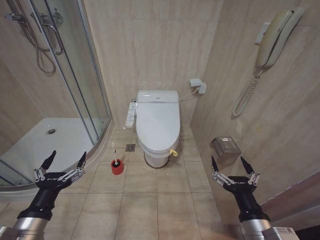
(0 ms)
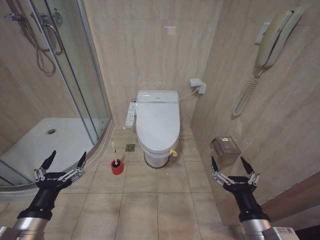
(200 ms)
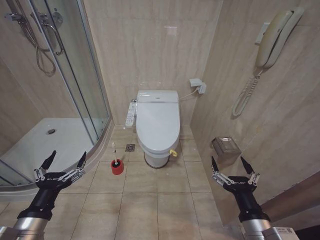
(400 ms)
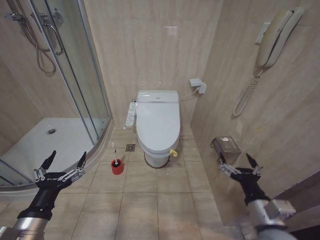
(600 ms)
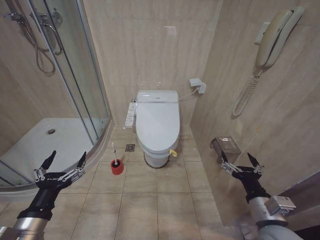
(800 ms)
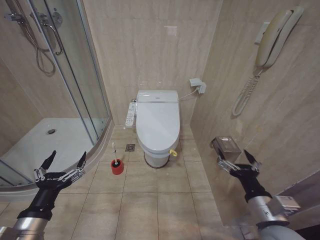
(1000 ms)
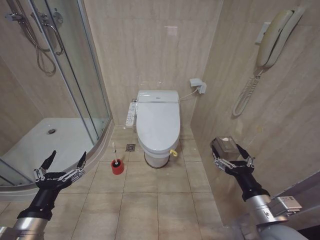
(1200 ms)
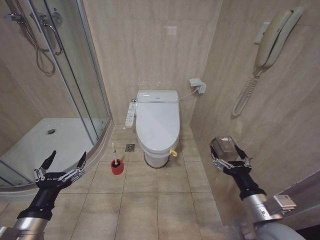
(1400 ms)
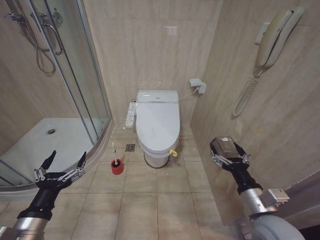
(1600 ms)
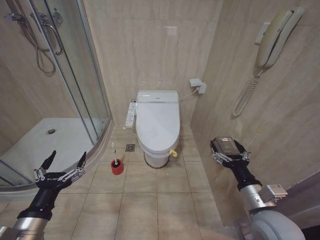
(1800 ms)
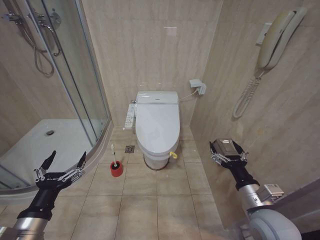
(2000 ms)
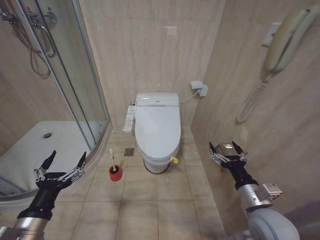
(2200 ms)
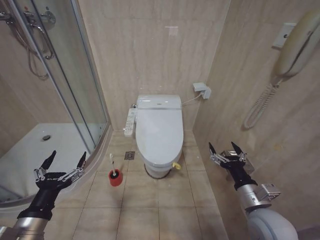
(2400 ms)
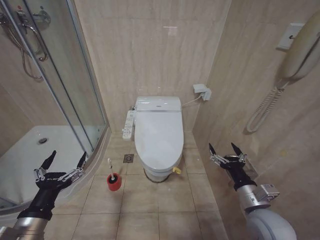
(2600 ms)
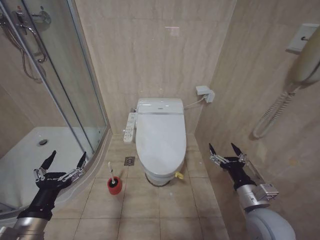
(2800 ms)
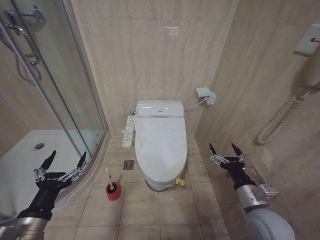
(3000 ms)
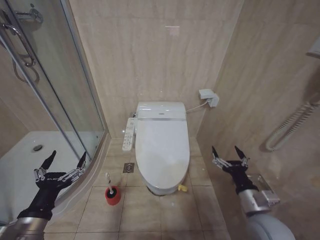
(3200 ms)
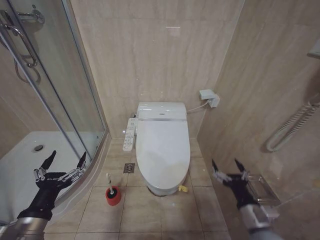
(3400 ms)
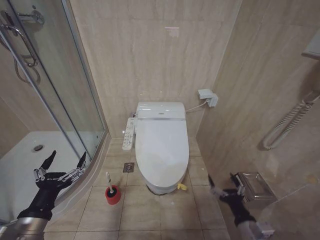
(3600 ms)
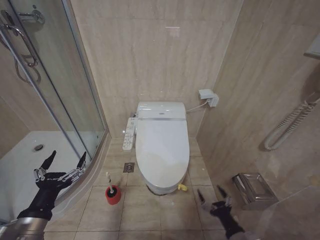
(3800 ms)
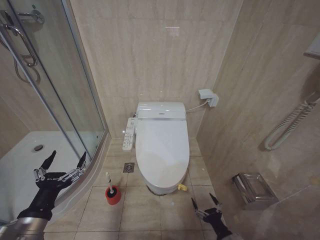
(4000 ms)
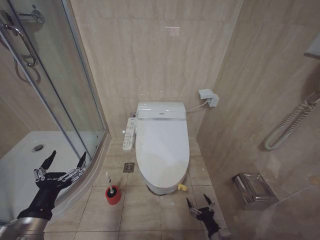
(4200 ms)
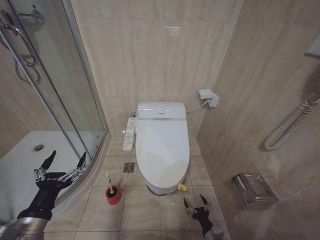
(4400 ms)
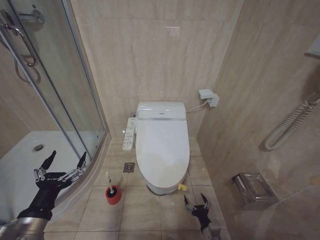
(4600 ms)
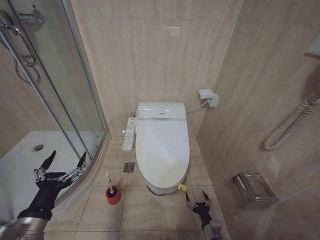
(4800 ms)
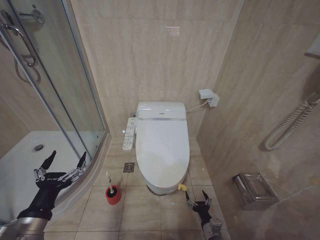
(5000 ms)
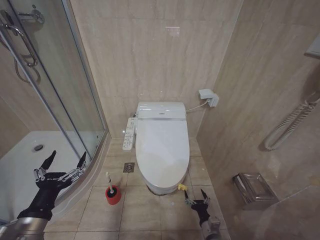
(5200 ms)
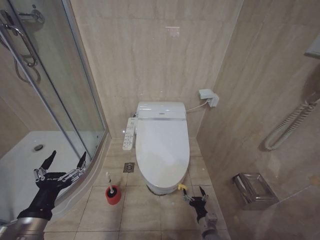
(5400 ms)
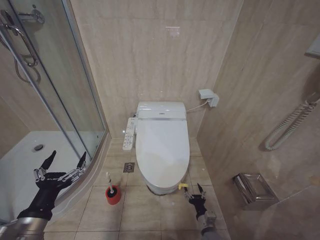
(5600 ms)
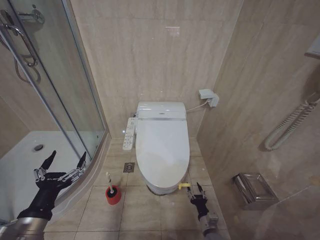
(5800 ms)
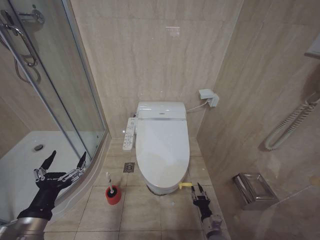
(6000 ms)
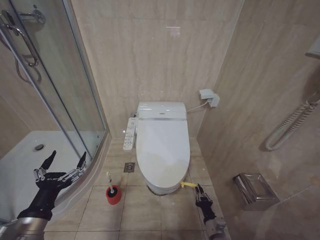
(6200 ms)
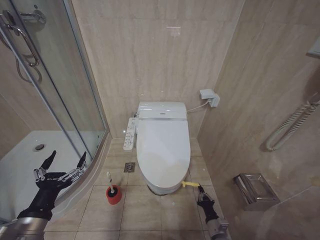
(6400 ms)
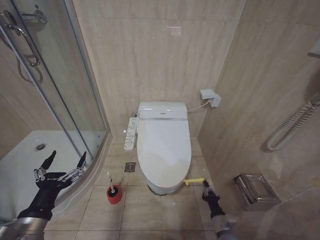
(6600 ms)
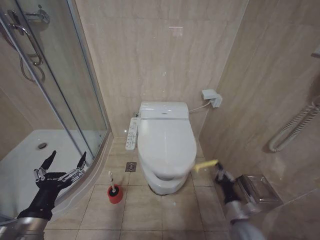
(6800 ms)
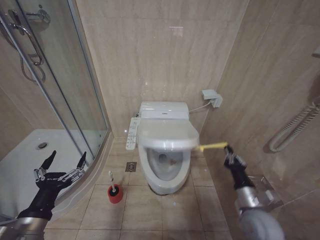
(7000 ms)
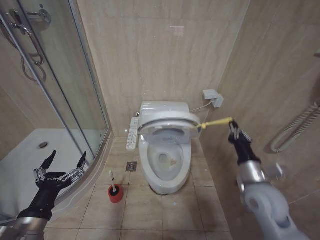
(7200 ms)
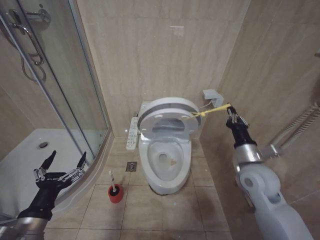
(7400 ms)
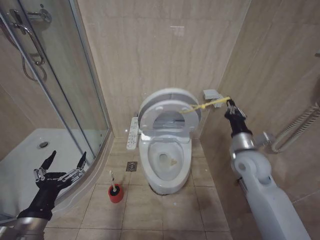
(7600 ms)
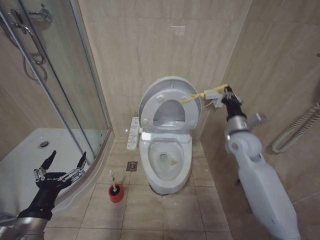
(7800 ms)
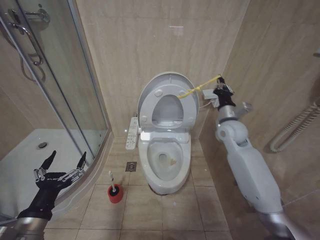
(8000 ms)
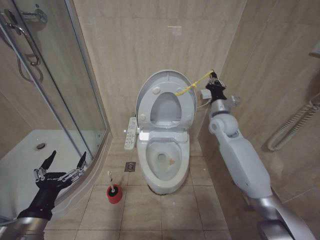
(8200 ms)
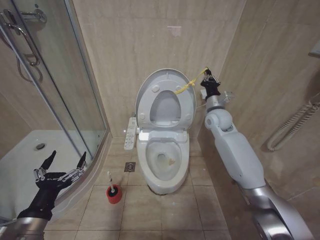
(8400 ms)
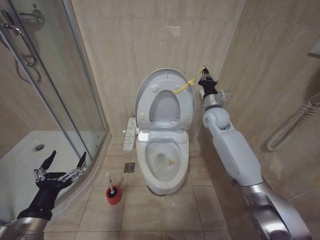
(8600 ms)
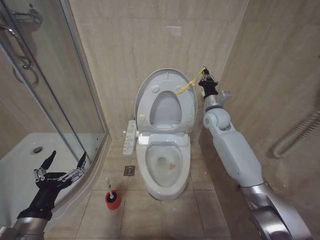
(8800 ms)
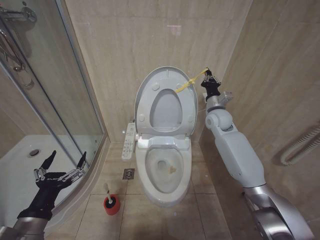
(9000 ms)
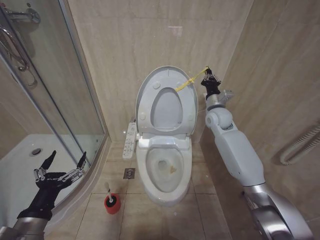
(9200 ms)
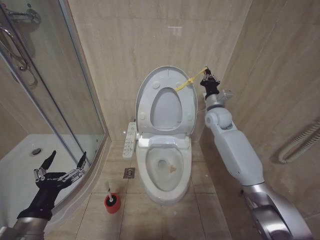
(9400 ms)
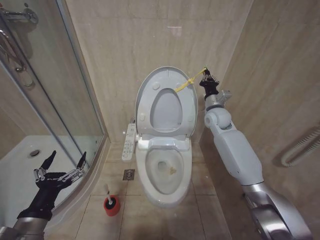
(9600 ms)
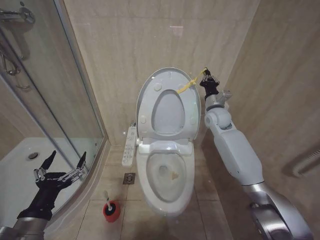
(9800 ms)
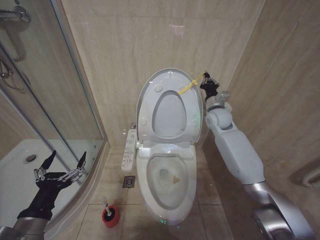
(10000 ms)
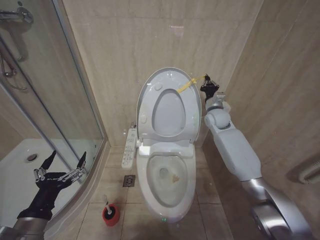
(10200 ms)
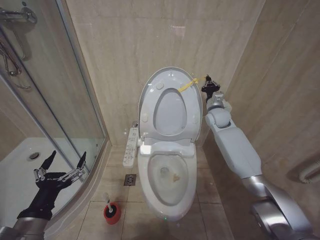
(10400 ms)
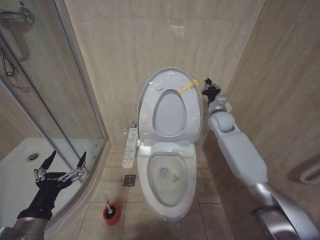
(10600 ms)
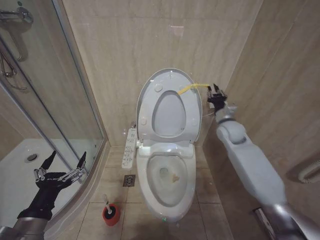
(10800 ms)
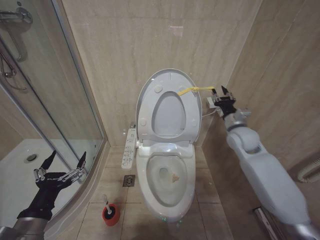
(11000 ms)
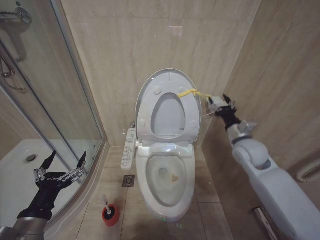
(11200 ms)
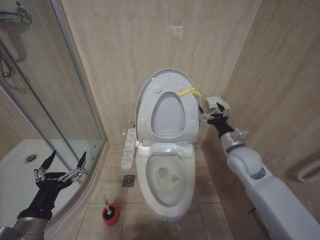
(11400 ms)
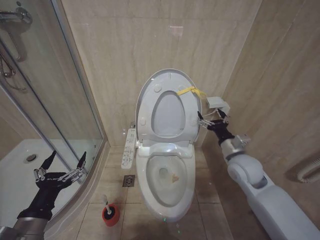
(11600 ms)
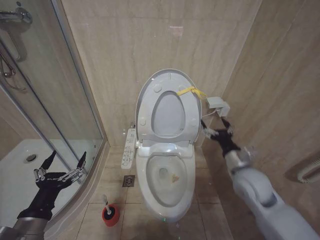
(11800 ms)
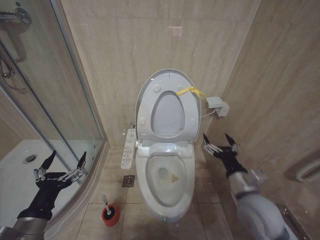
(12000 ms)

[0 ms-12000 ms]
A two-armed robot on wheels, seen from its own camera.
Task of the whole recording: Open the toilet lid, clean the toilet bowl with a toilet brush, close the toilet lid, and flush.
3000 ms to 4400 ms: The right gripper is displaced downward by roughly 30 cm.
4400 ms to 6000 ms: The right gripper shifts by roughly 5 cm, and closes its fingers.
6000 ms to 7600 ms: The right gripper heads upward, covering approximately 35 cm, and closes up.
7600 ms to 9000 ms: The right gripper shifts roughly 20 cm forward.
10400 ms to 12000 ms: The right gripper heads backward, covering approximately 30 cm, and opens its fingers.

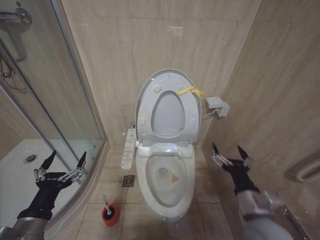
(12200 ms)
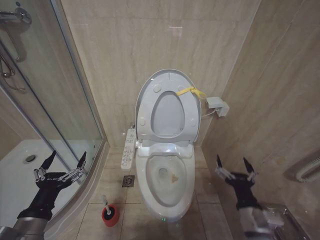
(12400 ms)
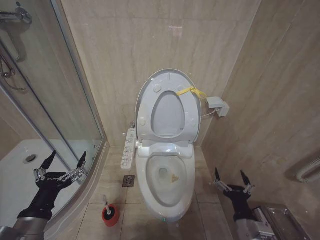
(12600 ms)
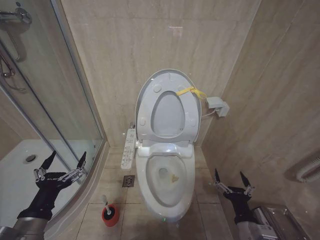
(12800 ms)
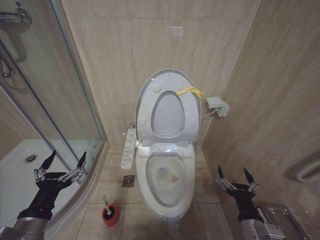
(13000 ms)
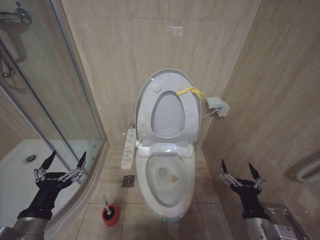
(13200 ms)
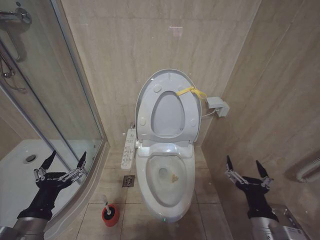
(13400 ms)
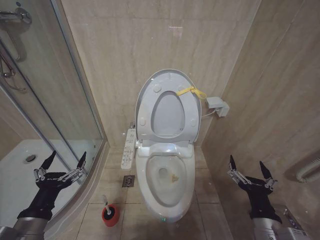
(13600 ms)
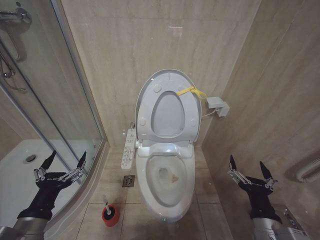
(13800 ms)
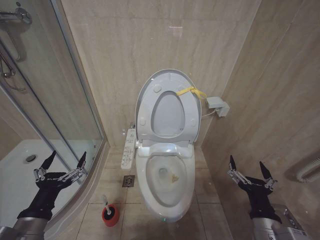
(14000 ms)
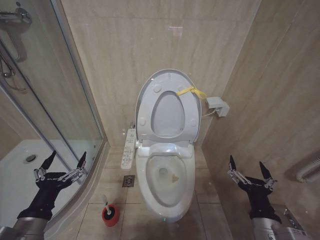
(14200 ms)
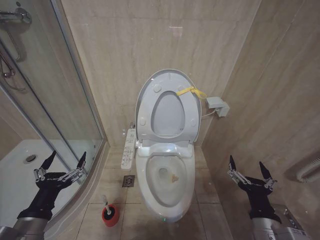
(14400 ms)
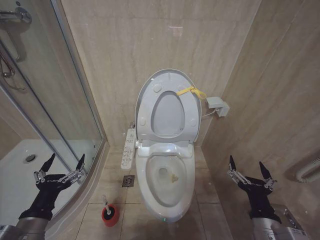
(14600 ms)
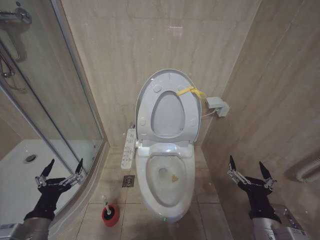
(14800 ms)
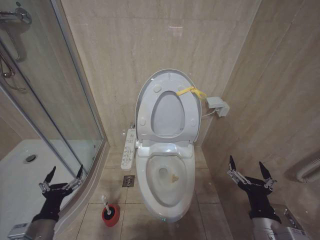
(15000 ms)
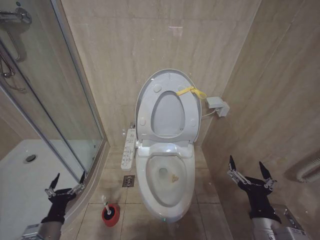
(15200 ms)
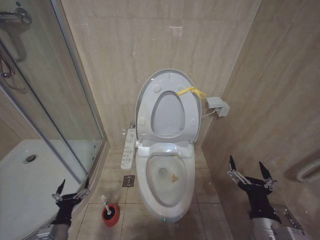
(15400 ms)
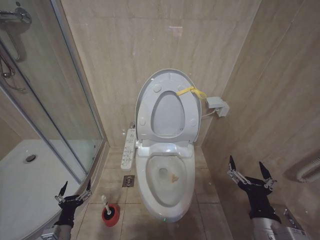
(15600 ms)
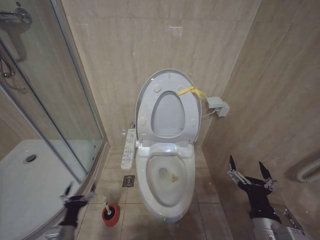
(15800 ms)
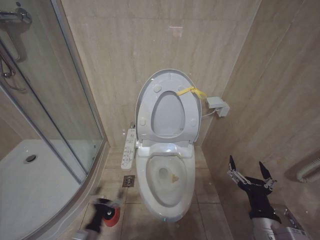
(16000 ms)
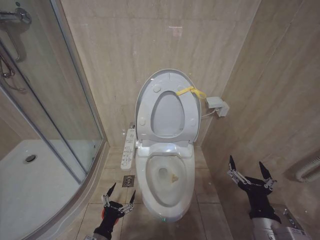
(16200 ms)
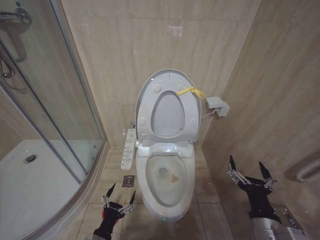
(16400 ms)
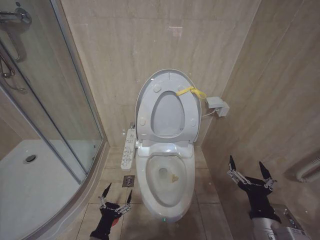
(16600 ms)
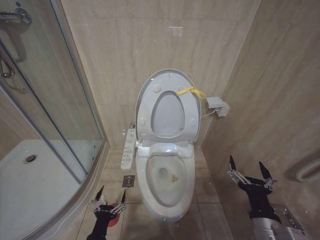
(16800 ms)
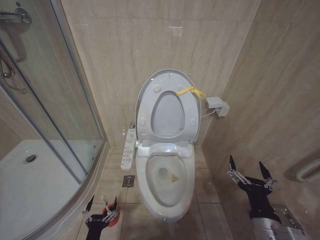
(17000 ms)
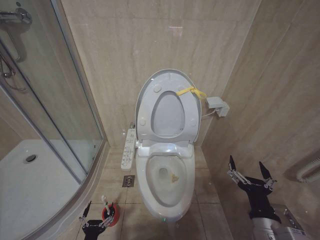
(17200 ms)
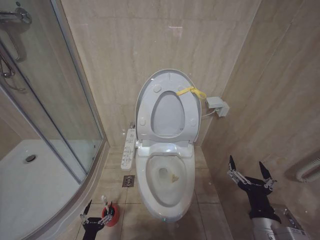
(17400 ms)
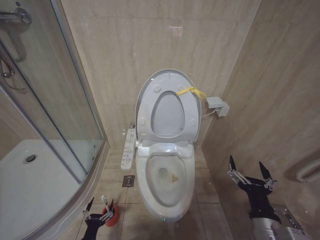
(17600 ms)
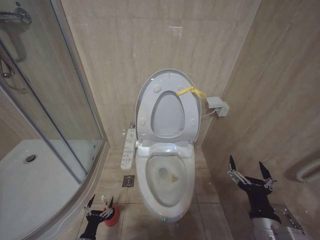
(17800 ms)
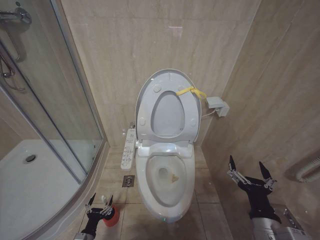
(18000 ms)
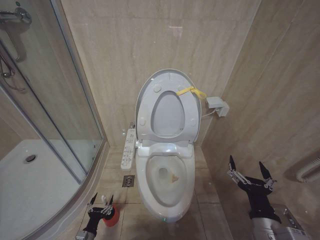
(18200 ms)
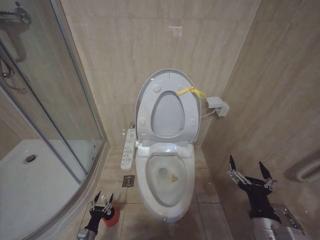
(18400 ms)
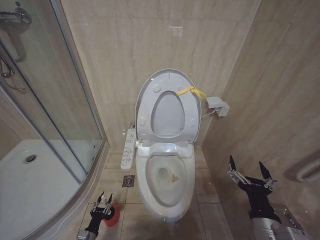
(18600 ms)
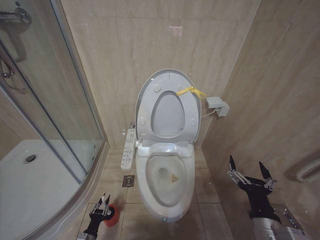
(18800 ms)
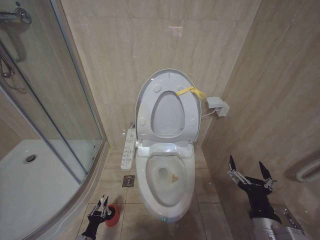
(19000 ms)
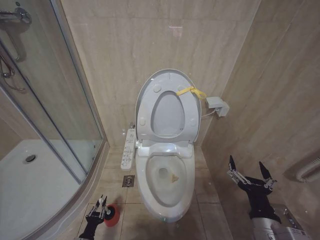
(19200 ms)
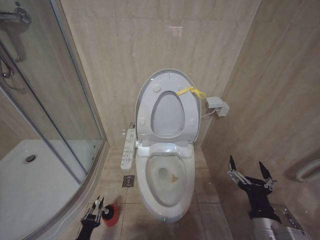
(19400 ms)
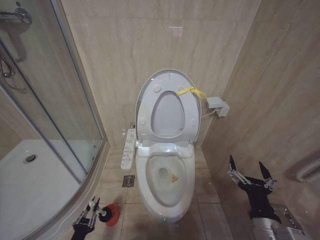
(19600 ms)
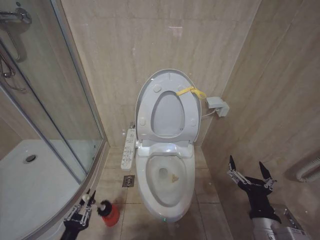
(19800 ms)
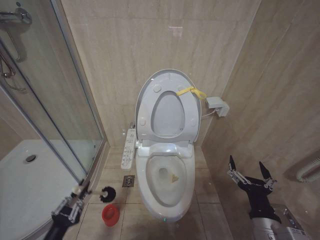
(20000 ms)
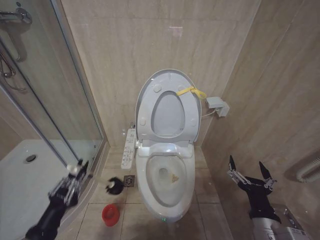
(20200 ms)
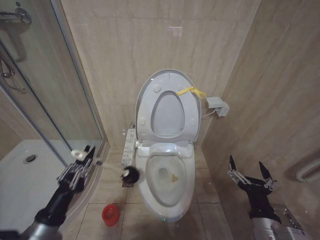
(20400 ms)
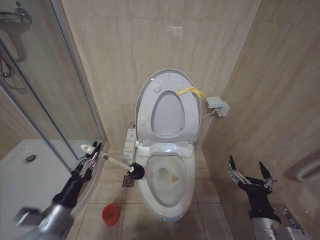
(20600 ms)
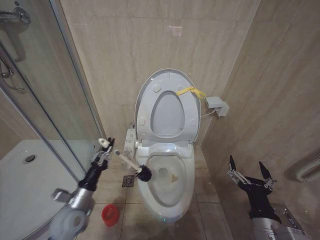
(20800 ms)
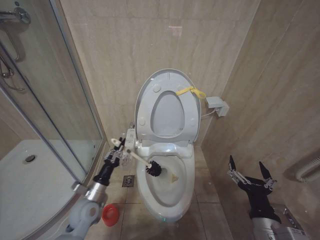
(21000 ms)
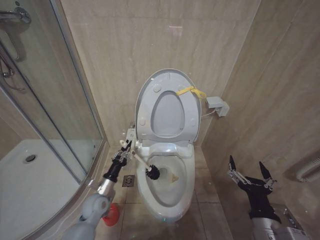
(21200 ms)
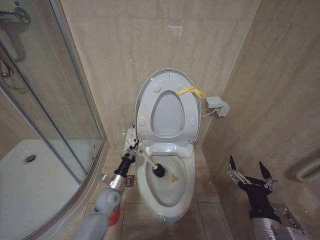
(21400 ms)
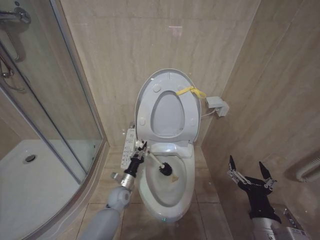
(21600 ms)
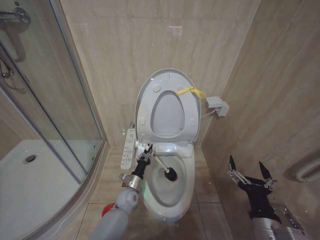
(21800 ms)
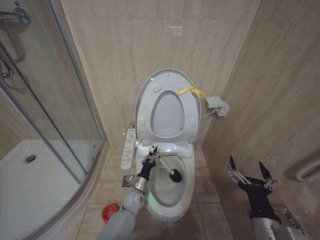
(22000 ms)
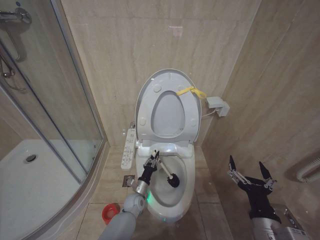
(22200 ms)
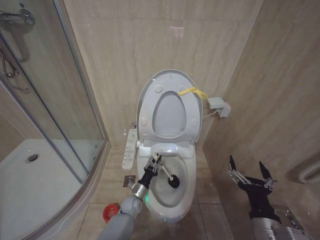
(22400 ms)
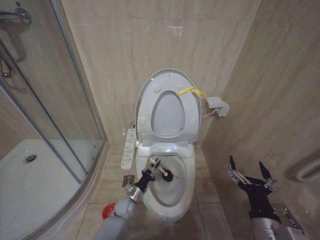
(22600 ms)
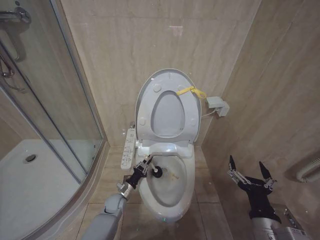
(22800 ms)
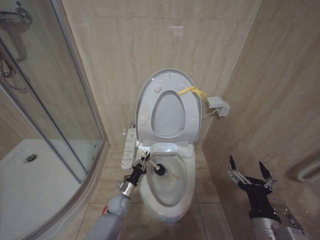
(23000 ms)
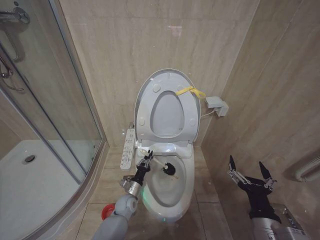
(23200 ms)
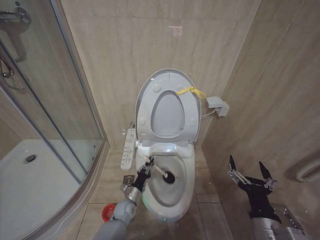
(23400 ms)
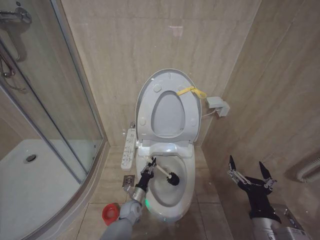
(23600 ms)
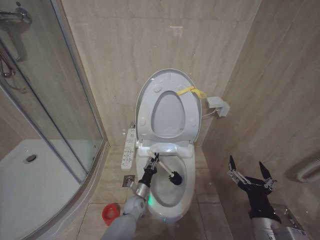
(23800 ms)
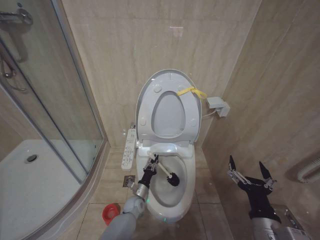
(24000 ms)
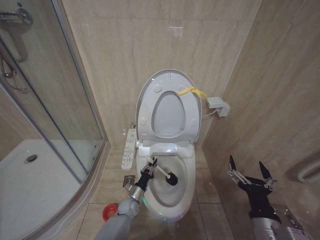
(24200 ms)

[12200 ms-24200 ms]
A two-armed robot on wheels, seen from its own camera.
Task of the whole recording: Open the toilet lid, clean the toilet bowl with a toilet brush, close the toilet lid, and flush.
12200 ms to 13800 ms: The right gripper travels backward by roughly 5 cm, and moves some 10 cm downward and comes back.
13800 ms to 15200 ms: The left gripper is displaced downward by approximately 15 cm.
15200 ms to 16600 ms: The left gripper goes roughly 15 cm to the right and downward.
16600 ms to 18200 ms: The left gripper goes approximately 20 cm downward and to the left.
18200 ms to 19800 ms: The left gripper shifts roughly 15 cm upward and backward, and closes up.
19800 ms to 21200 ms: The left gripper moves forward, to the right and upward, roughly 25 cm.
21200 ms to 22600 ms: The left gripper moves downward and to the right, approximately 20 cm.
22600 ms to 24200 ms: The left gripper moves about 5 cm to the left and comes back.
